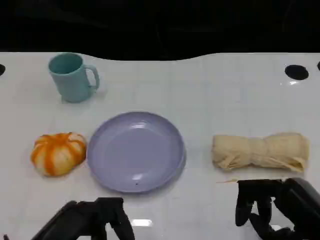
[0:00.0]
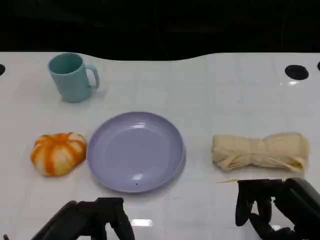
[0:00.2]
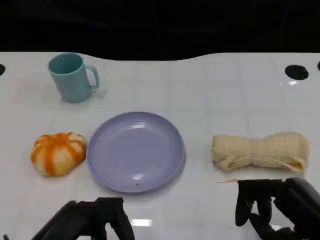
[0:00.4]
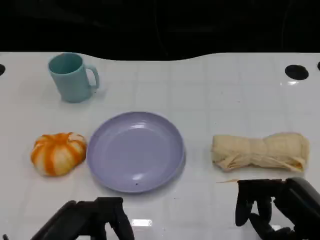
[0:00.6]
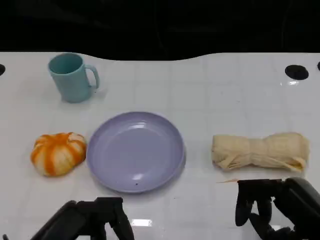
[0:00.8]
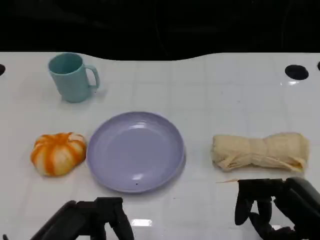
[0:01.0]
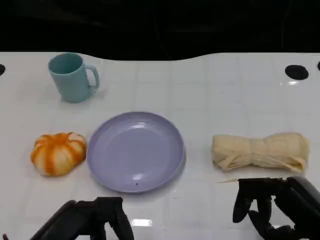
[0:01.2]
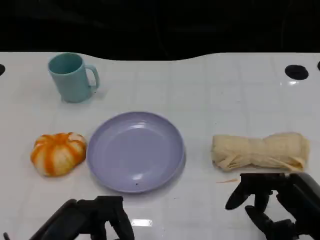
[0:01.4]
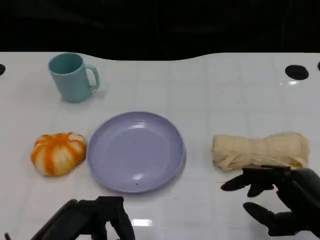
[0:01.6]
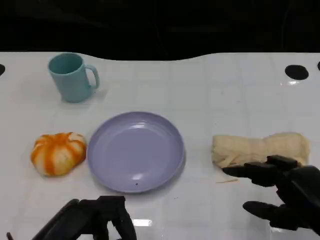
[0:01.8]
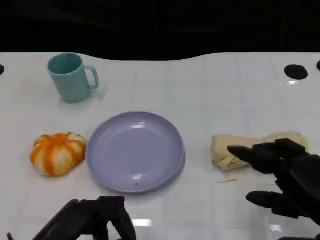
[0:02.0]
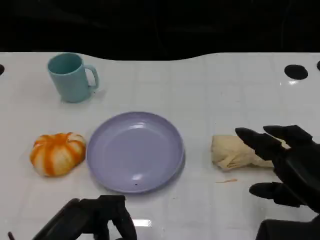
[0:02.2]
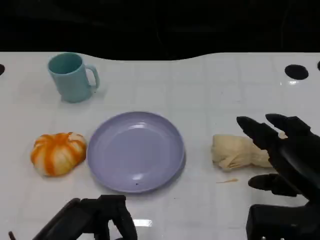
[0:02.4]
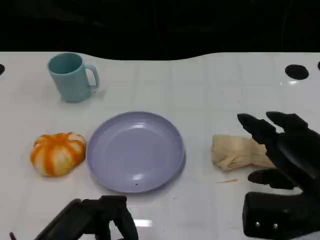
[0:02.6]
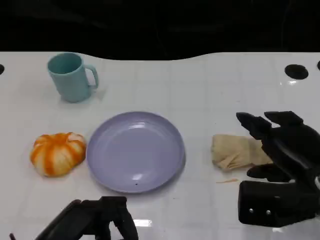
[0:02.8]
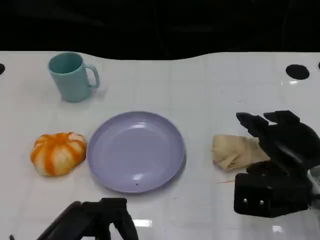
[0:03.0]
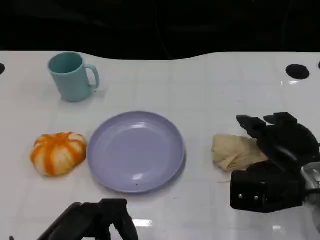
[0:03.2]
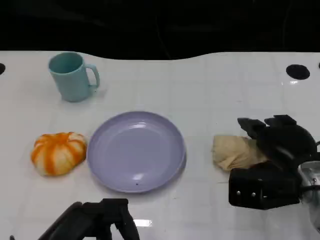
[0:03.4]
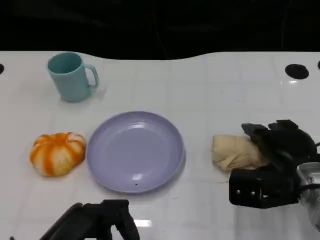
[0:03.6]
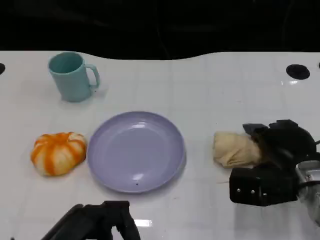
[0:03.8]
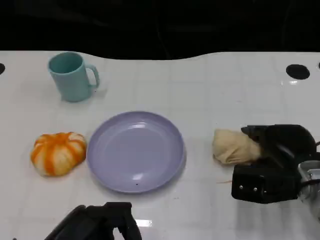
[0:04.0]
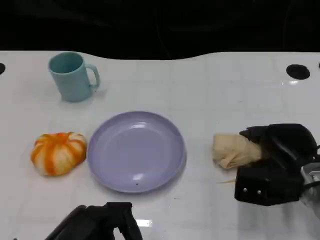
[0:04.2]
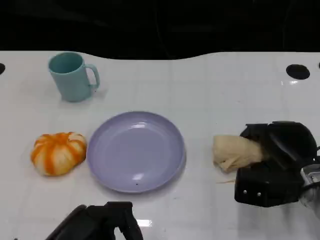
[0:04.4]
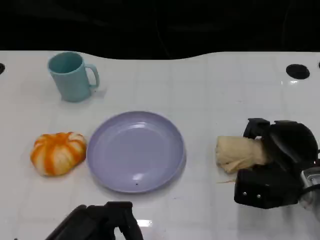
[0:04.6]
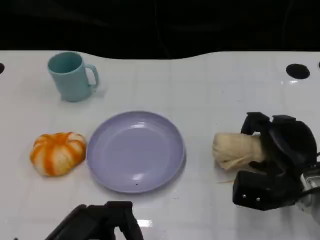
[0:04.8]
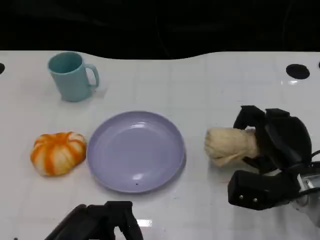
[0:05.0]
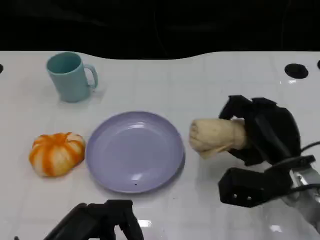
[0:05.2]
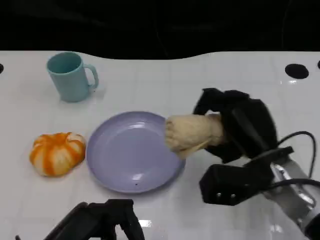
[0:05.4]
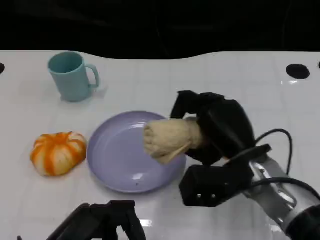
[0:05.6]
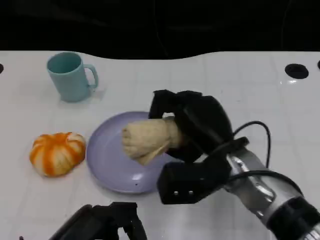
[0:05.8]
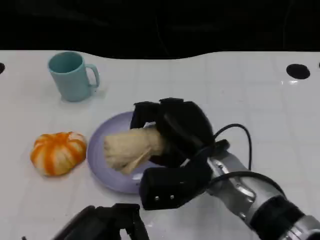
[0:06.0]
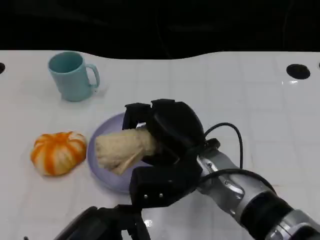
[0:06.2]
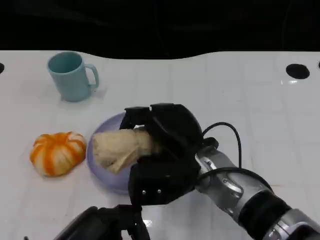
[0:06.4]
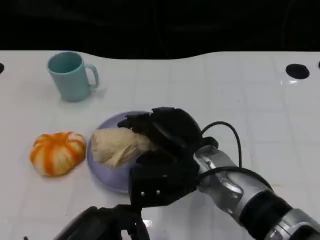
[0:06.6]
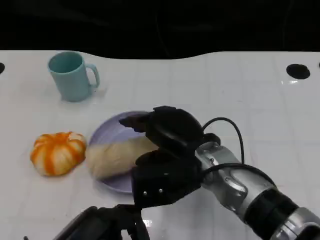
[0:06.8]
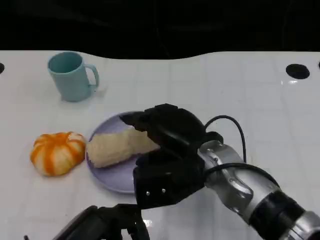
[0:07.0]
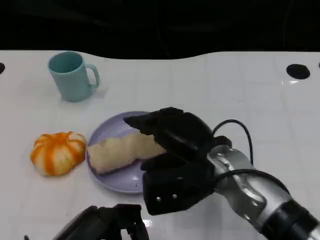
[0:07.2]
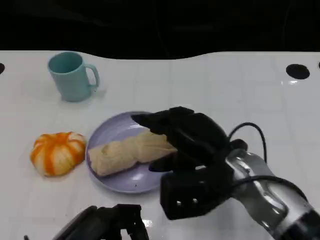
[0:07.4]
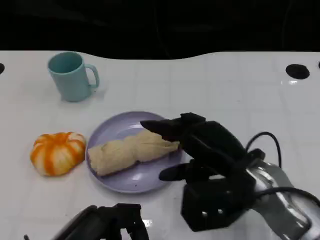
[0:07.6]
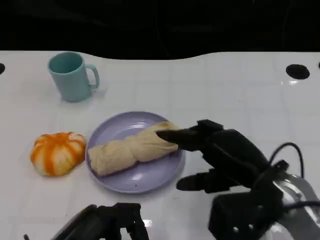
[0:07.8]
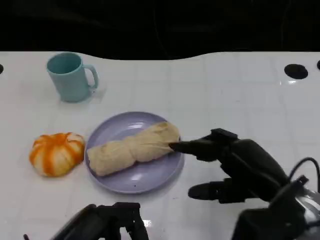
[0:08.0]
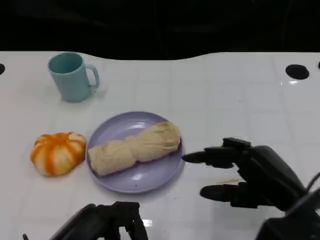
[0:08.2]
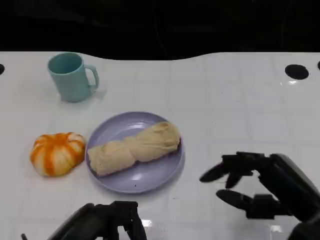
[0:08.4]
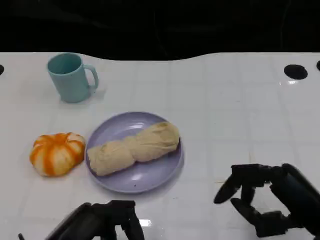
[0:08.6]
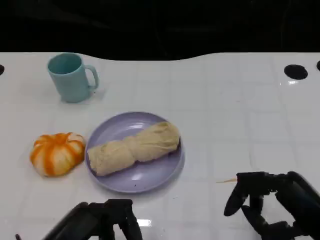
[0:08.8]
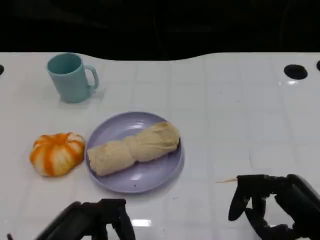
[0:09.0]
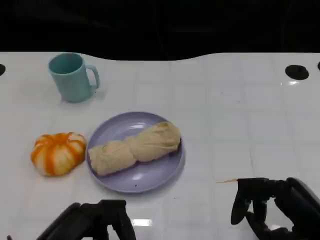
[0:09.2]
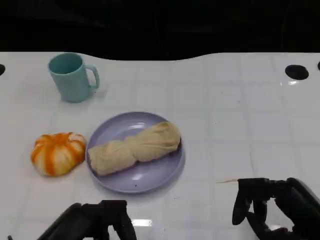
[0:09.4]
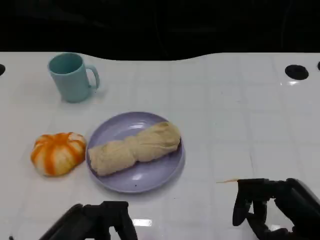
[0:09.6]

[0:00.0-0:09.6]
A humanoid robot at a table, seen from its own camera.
Task of the whole recording: Grasp the towel on the left side of the plate with the left hand and place it into the plate.
0:00.0 to 0:01.6: There are only small adjustments of the hands.
0:01.6 to 0:03.2: The right hand moves forward, approximately 10 cm.
0:03.2 to 0:04.8: The right hand ends up some 5 cm from where it was.
0:04.8 to 0:06.4: The right hand travels to the left and upward by some 15 cm.
0:06.4 to 0:08.0: The right hand heads to the right and backward, covering about 15 cm.
0:08.0 to 0:09.6: The right hand travels backward by approximately 5 cm.

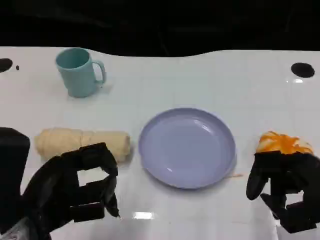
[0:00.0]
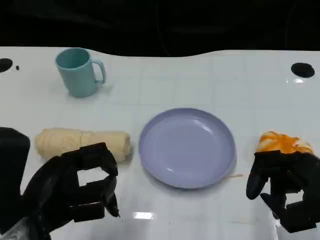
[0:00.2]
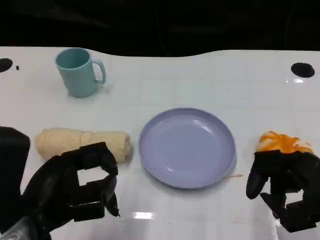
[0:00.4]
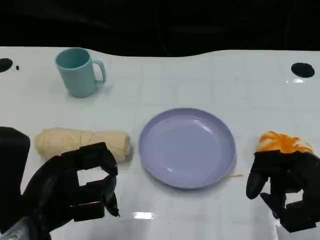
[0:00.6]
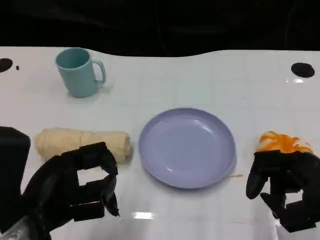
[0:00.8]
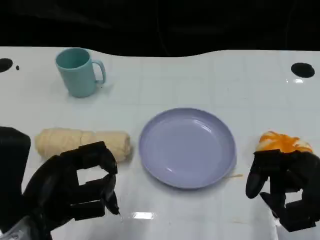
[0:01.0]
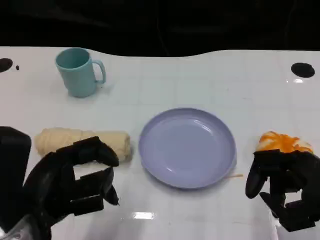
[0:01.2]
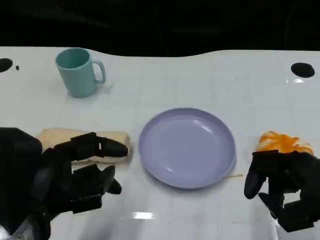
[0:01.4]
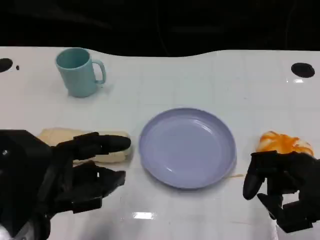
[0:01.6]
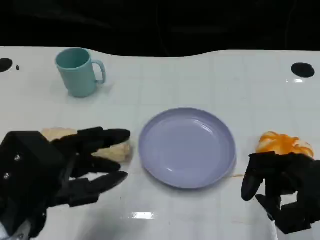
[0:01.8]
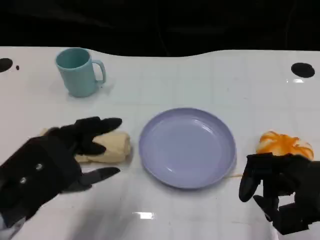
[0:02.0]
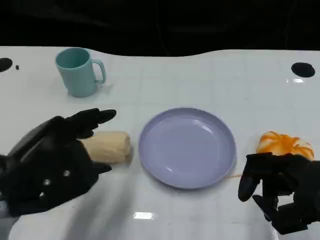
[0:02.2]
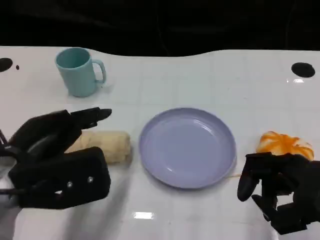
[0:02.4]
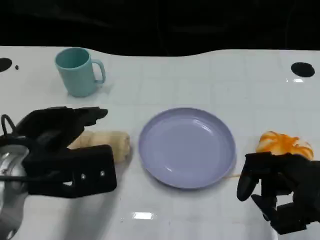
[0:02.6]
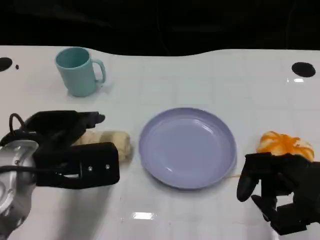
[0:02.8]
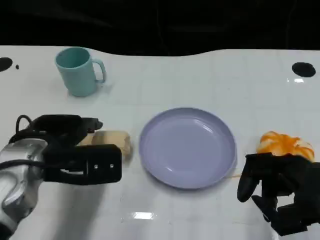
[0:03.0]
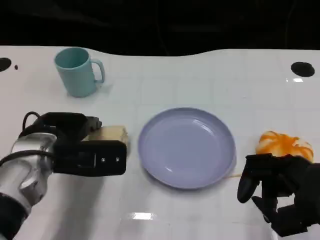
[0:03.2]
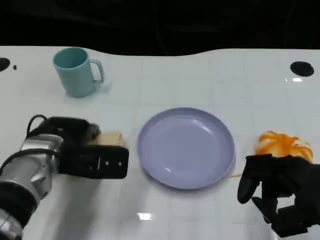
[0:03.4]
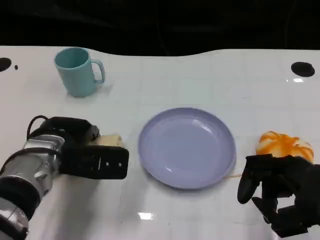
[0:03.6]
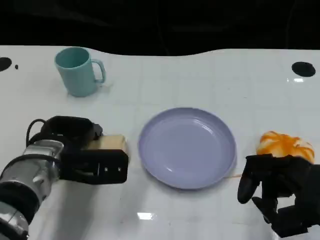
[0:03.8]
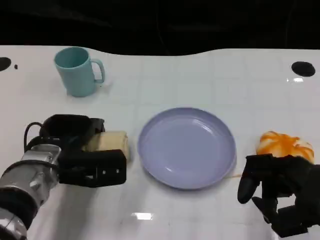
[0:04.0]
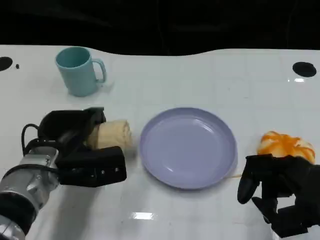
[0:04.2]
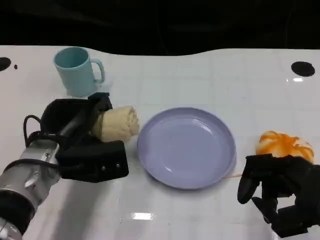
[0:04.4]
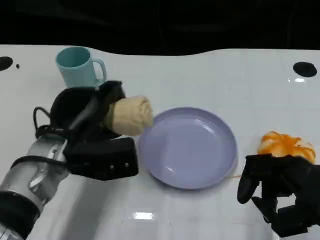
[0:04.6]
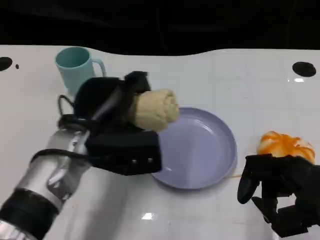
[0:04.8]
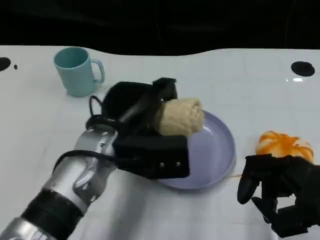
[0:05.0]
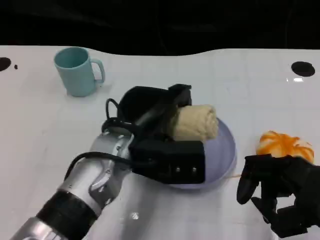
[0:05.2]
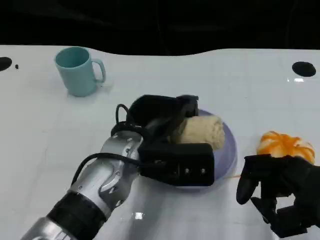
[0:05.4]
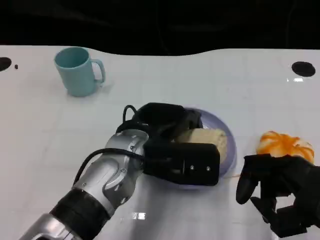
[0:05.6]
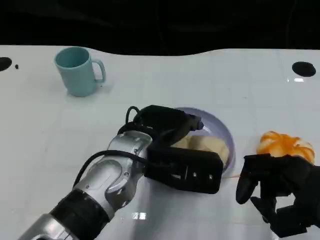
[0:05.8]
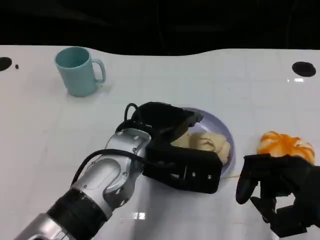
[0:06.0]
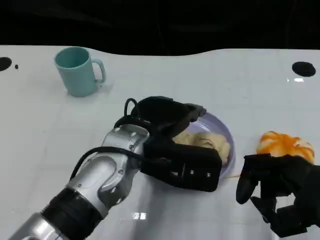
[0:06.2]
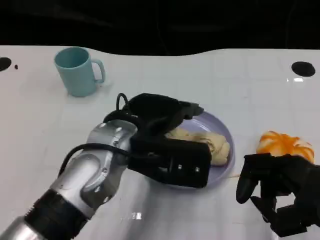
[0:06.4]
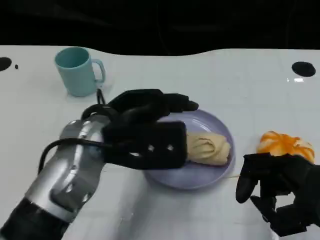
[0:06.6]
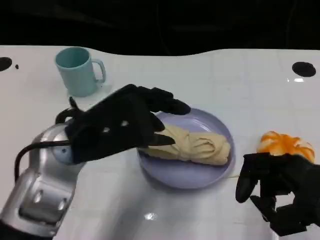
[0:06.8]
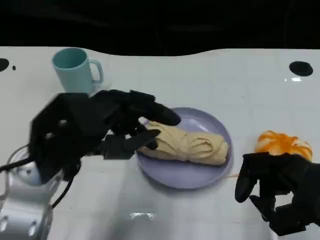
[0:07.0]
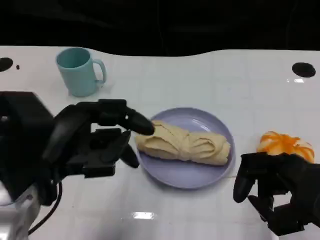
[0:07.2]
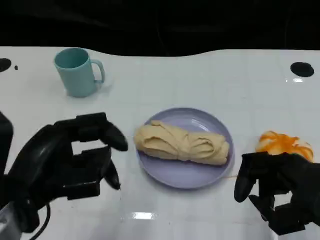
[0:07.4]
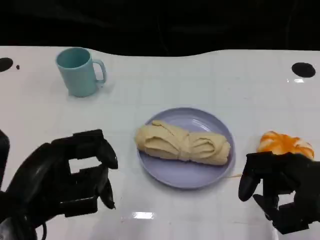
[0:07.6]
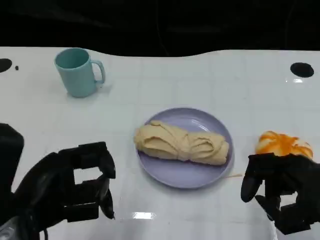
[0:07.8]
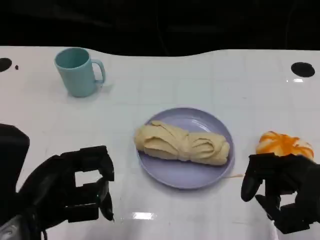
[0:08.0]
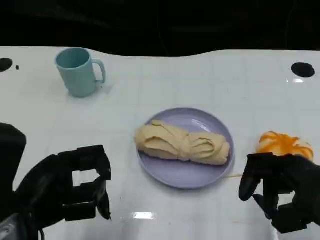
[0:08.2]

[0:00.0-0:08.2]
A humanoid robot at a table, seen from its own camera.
Task of the whole recording: Grasp the towel on the left side of the plate with the left hand and place it into the plate.
0:00.0 to 0:01.6: The hands stay close to where they were, moving slightly.
0:01.6 to 0:03.2: The left hand travels forward by roughly 15 cm.
0:03.2 to 0:05.0: The left hand heads to the right, covering approximately 10 cm.
0:05.0 to 0:06.6: The left hand moves roughly 5 cm.
0:06.6 to 0:08.2: The left hand is displaced to the left and backward by about 15 cm.

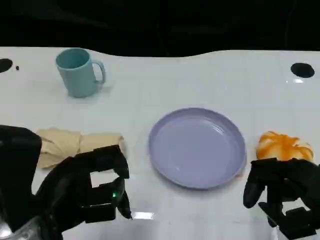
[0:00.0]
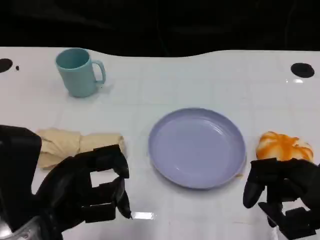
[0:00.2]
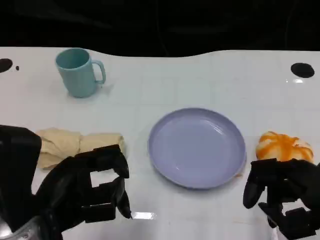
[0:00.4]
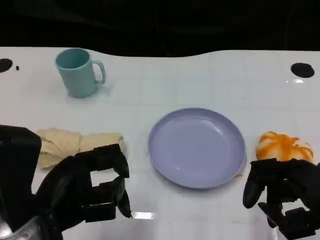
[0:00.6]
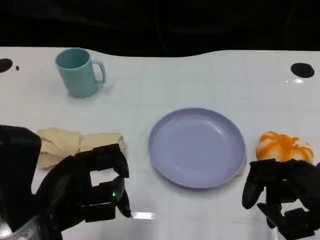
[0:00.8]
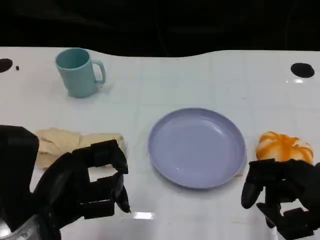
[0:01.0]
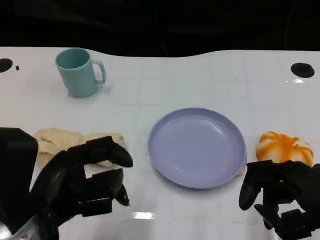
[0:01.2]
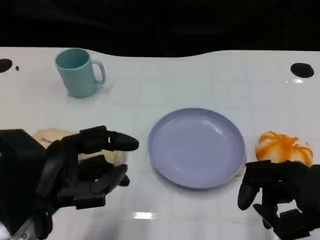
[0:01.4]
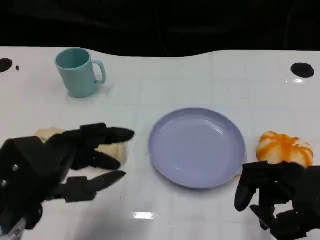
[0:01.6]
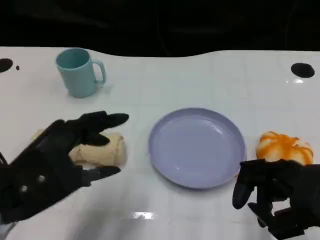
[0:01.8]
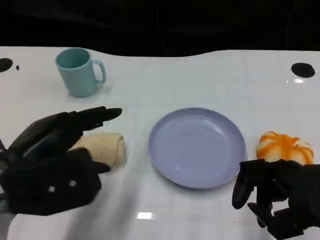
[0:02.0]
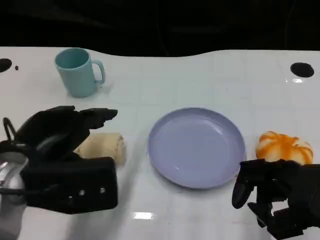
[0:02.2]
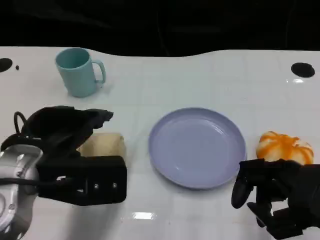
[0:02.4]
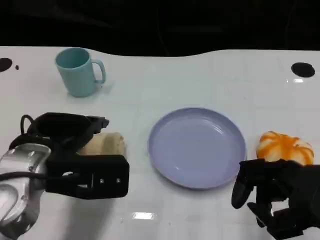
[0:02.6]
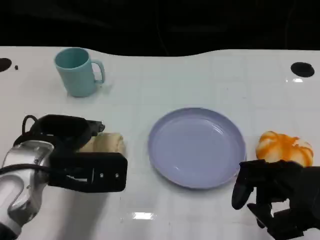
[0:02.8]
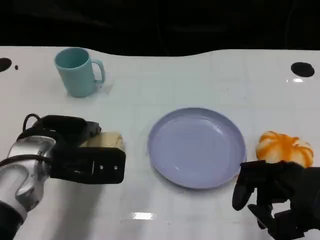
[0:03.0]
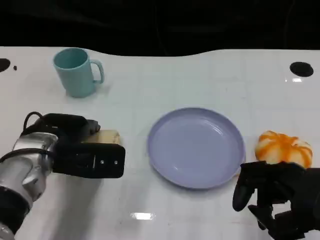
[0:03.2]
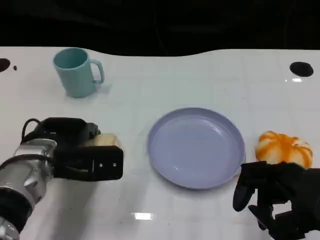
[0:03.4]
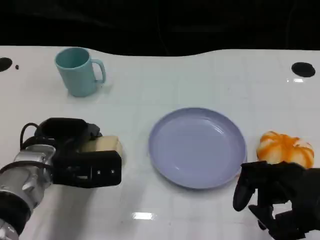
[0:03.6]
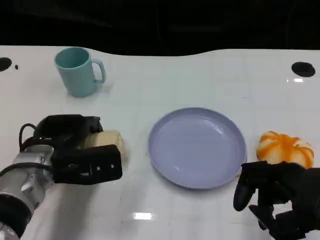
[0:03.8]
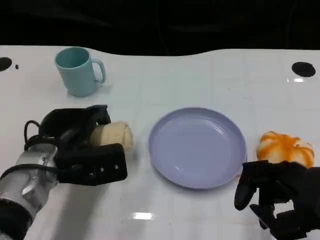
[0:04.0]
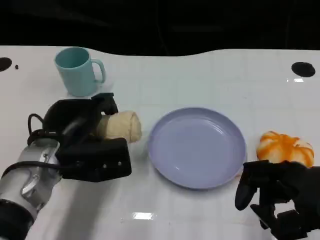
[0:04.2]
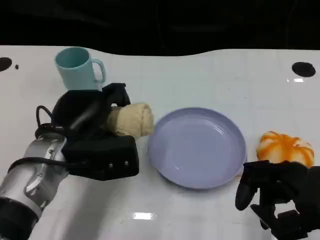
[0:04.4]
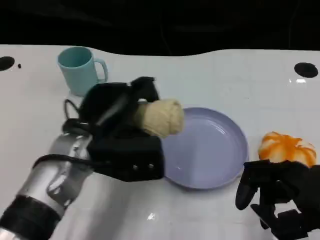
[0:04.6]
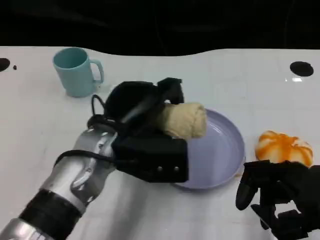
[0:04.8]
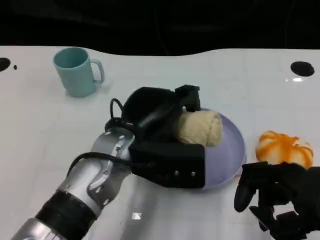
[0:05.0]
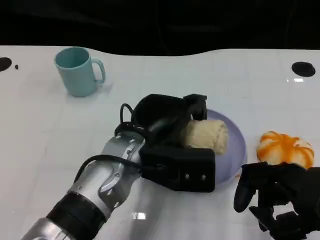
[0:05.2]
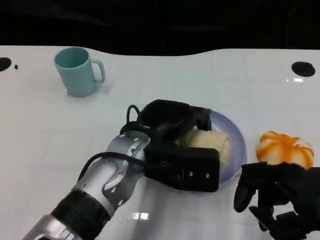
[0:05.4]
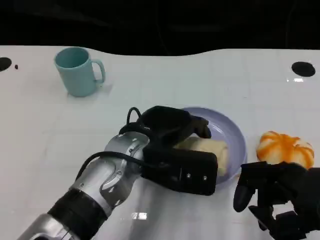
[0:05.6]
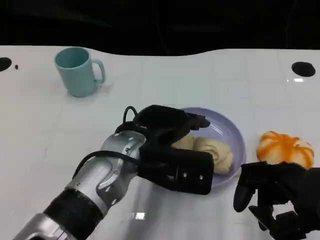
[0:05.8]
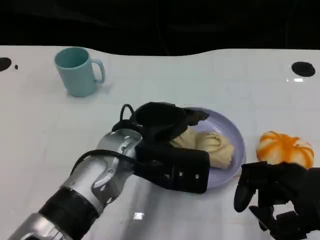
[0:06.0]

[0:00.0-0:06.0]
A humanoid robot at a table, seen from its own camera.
Task of the whole recording: Grasp the towel on the left side of the plate with the left hand and place it into the plate.
0:01.6 to 0:03.0: The left hand is displaced forward by about 10 cm.
0:04.4 to 0:06.0: The left hand shifts about 10 cm to the right.
